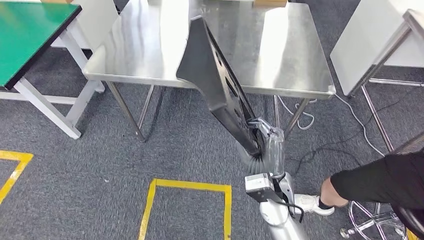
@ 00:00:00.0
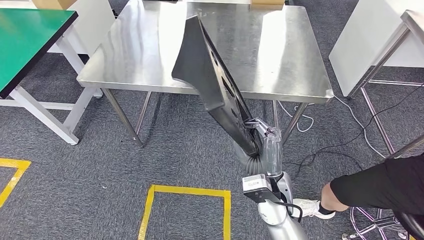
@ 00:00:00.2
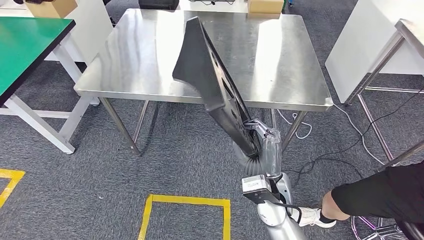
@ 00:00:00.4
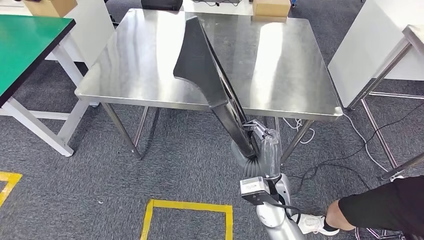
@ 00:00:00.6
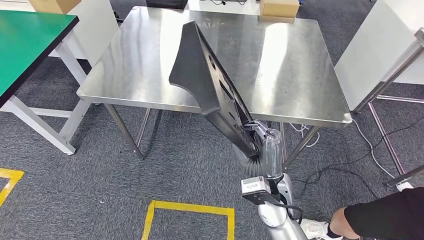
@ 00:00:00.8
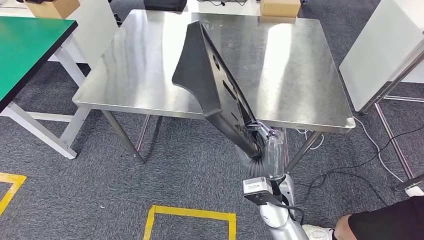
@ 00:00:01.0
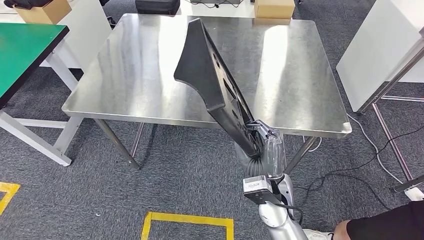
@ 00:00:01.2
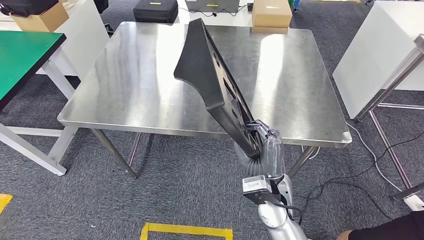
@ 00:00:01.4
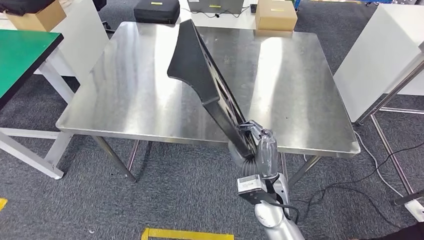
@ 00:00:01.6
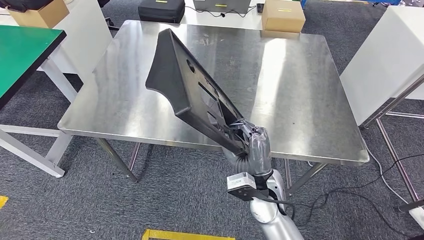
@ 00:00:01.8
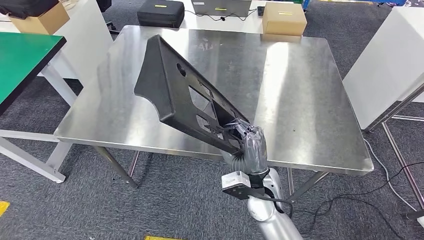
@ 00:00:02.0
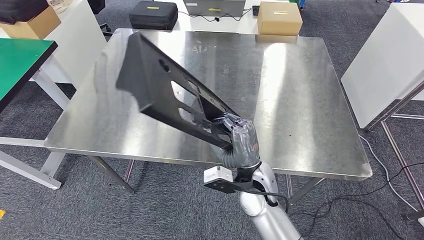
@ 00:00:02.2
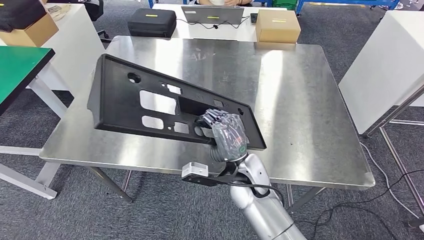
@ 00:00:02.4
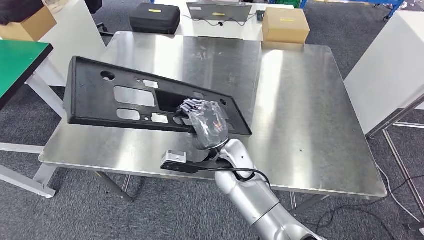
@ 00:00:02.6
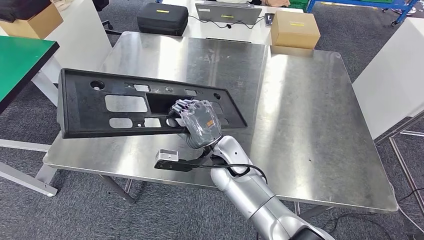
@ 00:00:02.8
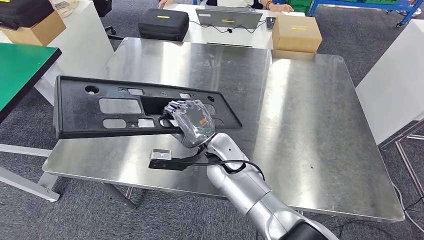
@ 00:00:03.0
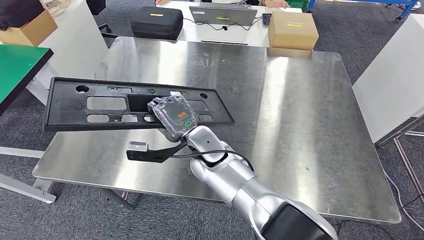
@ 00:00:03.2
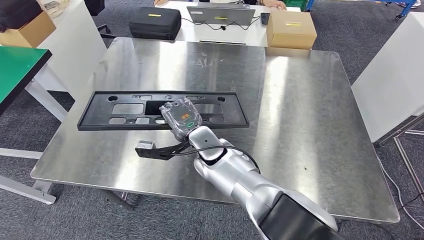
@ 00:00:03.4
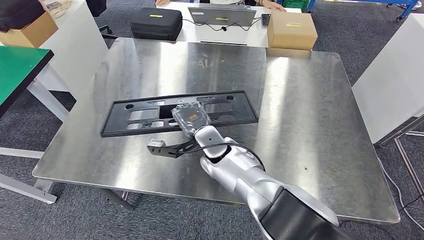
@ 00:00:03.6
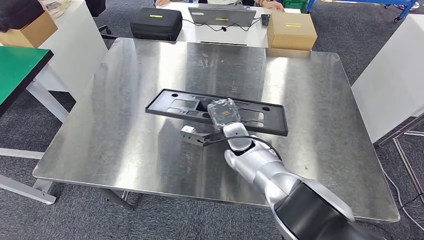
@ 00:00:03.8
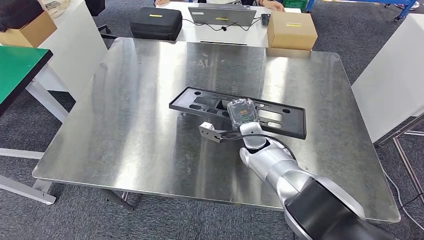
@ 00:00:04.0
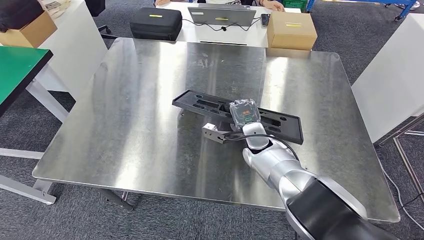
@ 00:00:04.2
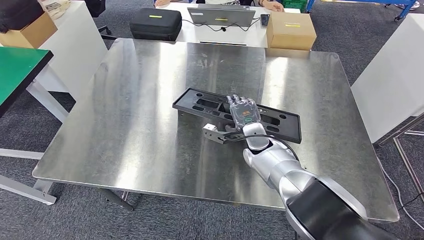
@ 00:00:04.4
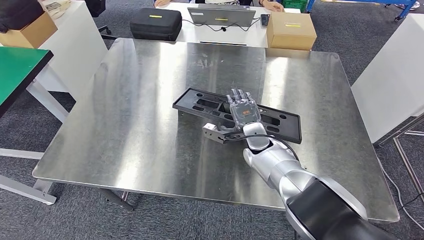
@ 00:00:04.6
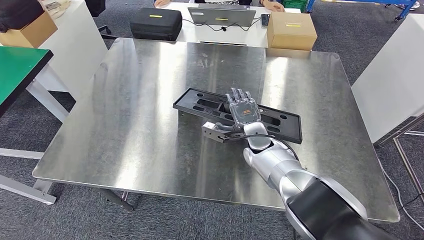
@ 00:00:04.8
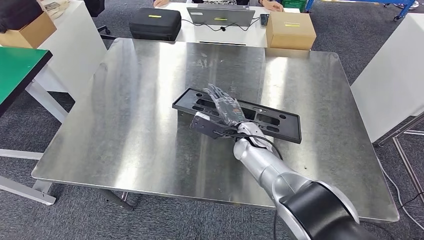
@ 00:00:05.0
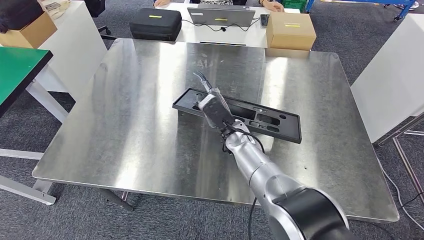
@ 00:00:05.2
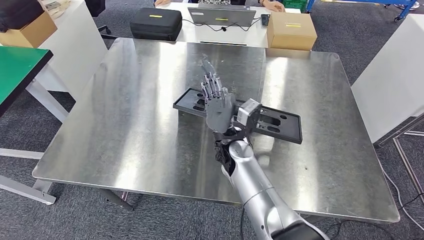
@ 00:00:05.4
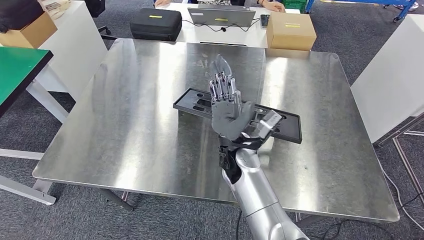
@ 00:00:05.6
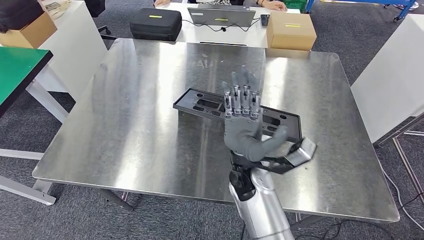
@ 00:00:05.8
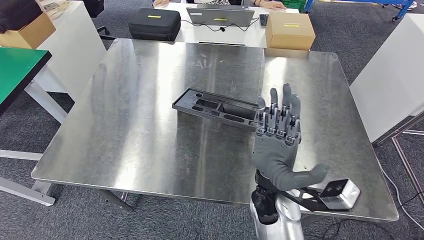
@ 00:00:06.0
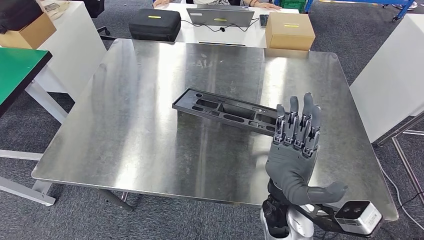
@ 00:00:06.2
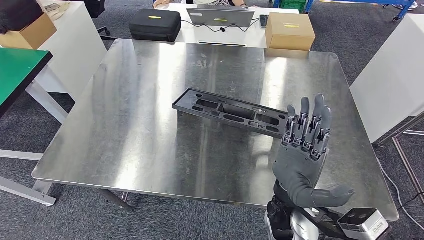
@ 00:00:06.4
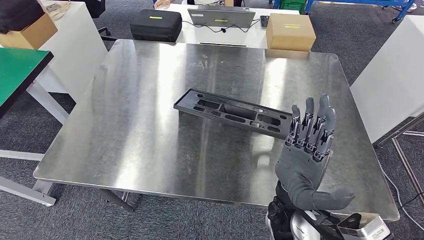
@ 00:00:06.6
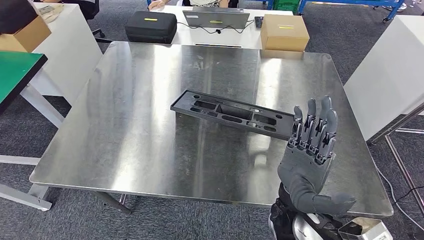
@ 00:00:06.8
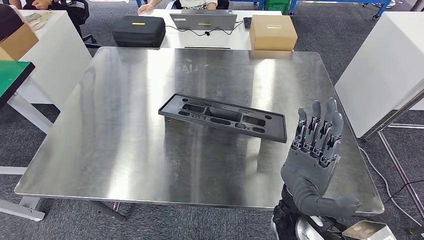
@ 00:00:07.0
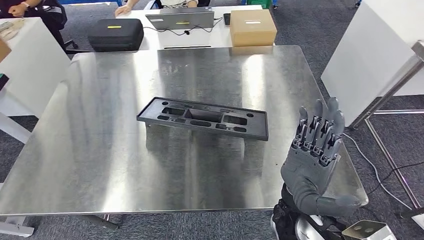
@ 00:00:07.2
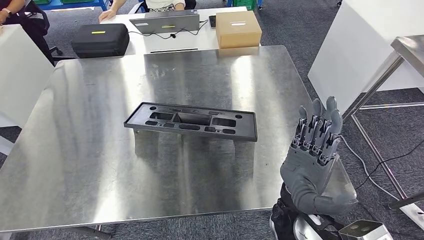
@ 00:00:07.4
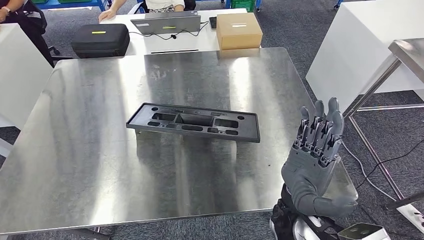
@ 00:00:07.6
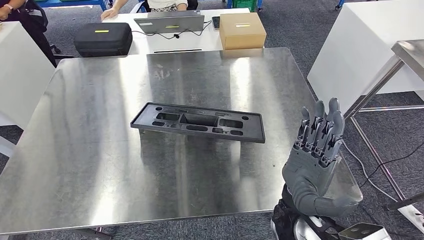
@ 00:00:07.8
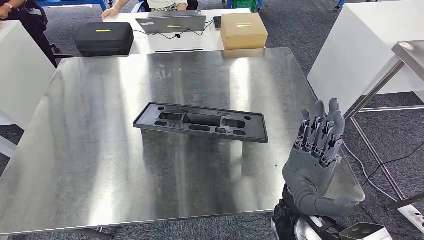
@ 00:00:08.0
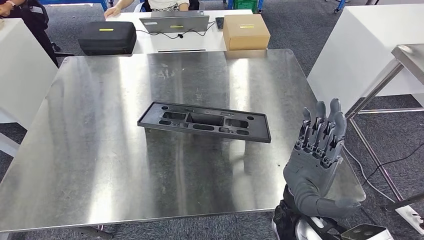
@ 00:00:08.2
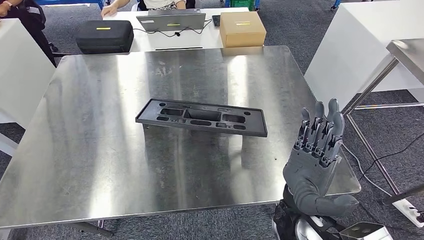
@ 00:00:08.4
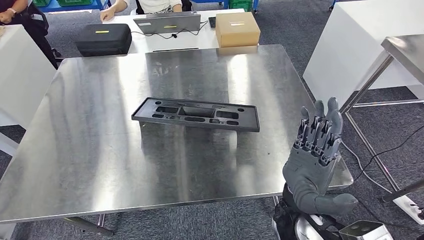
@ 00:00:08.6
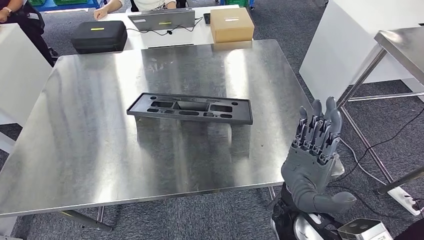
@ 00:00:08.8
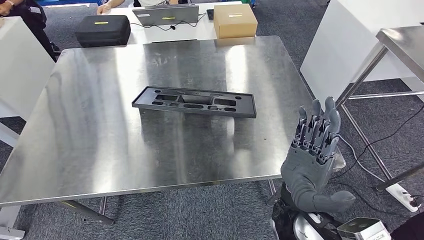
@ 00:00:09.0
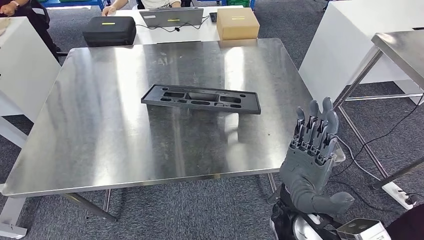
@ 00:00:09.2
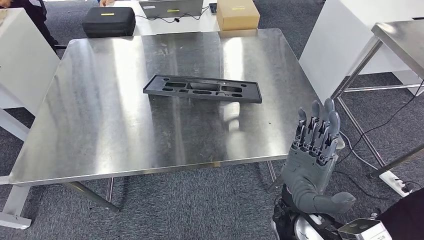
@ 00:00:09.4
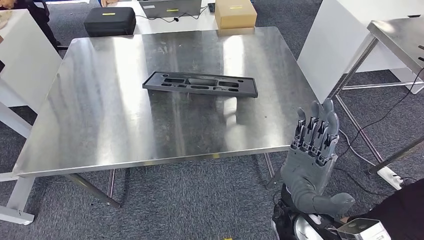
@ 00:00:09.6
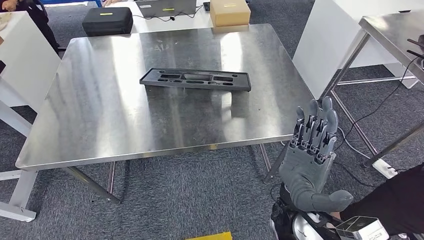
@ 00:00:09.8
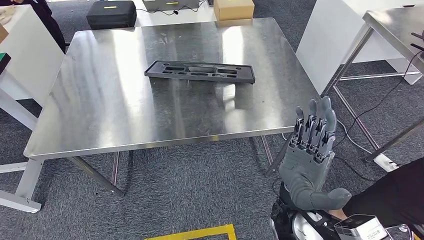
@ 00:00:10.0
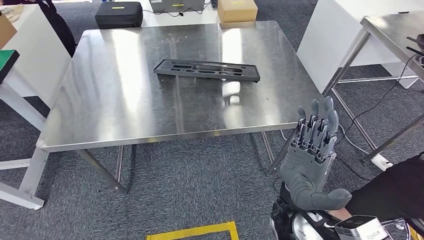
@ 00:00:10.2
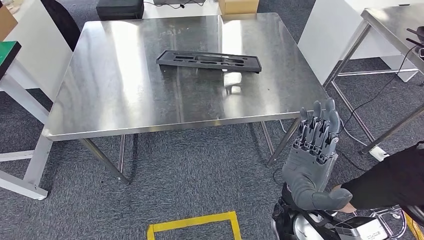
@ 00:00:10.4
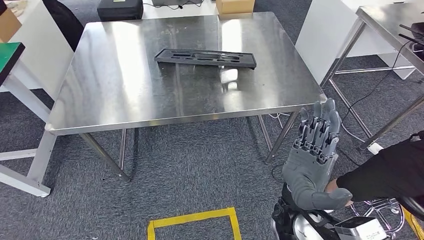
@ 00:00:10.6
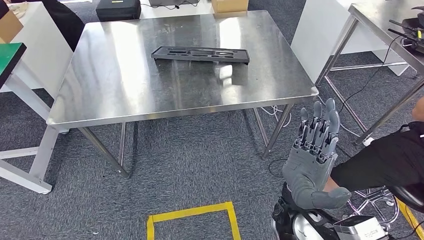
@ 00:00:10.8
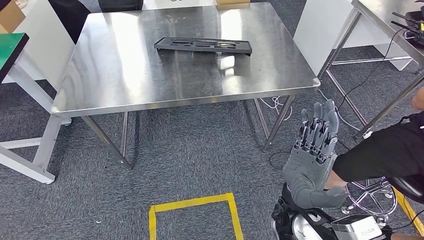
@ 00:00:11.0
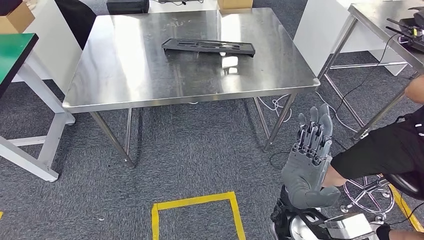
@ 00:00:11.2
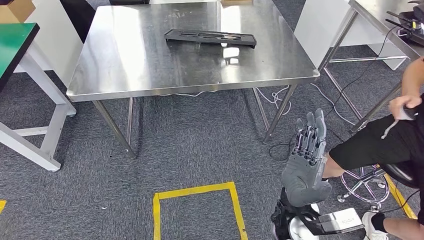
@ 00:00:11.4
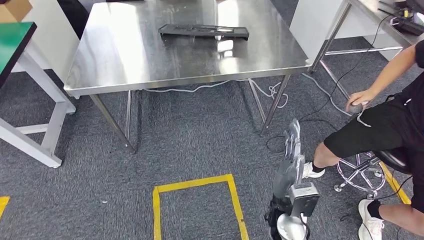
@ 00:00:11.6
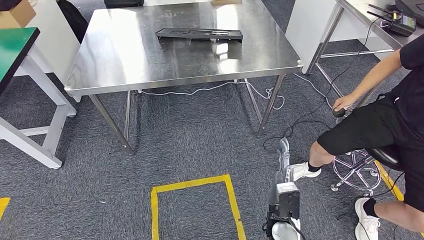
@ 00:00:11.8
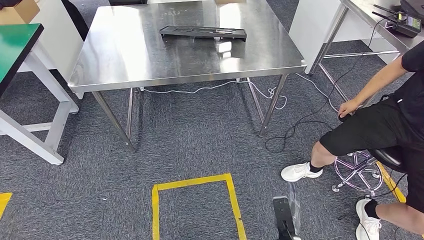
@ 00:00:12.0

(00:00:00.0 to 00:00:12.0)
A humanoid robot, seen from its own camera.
Step, 00:00:00.0 - 00:00:07.4: Insert the large material into the corresponding slot on the workbench.
00:00:04.4 - 00:00:06.0: The right hand moves backward, about 15 cm.

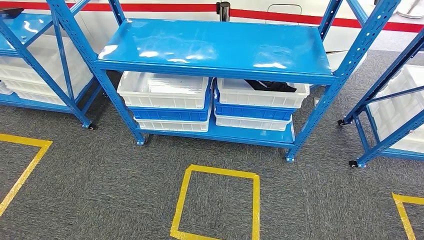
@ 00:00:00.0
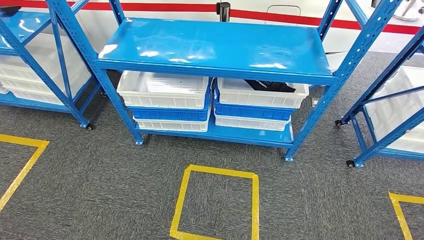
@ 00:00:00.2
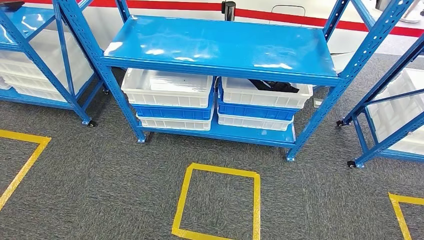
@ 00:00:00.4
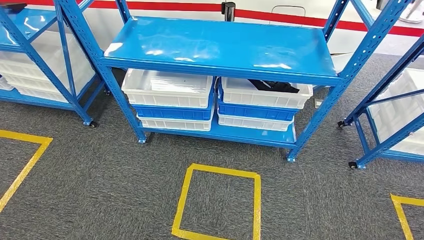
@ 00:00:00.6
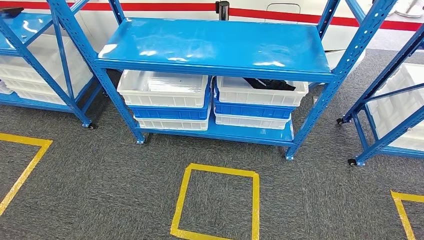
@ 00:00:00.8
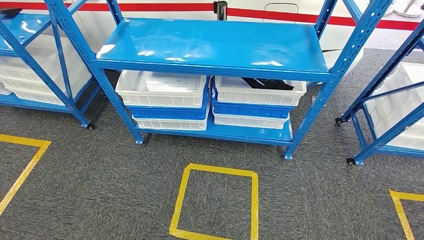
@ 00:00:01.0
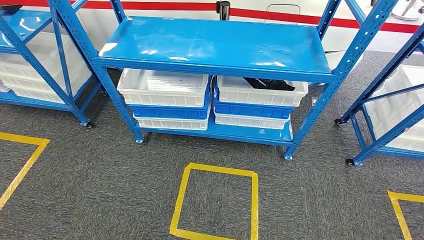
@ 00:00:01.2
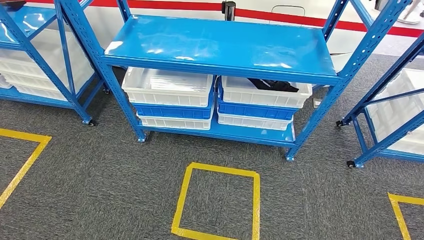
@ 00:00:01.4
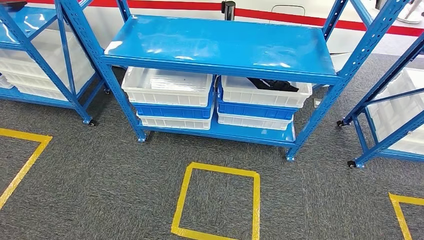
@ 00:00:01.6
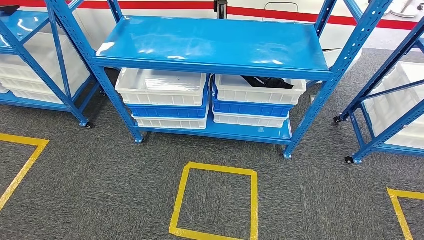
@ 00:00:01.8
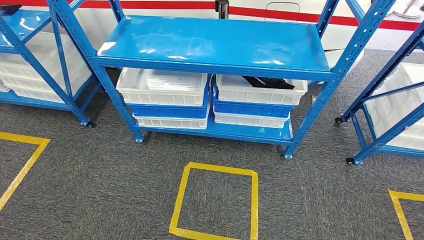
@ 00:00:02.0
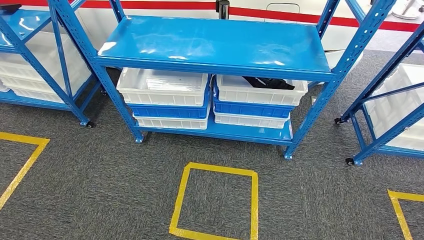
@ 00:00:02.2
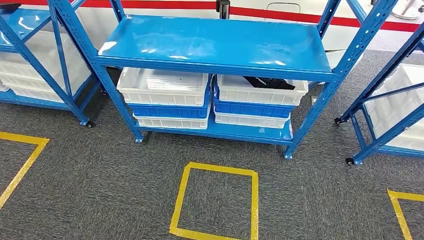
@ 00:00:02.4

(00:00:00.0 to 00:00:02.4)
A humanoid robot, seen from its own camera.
Step, 00:00:00.0 - 00:00:02.2: Return to the initial position at the shelf.
00:00:00.0 - 00:00:01.2: The left hand shifts roughly 5 cm backward.
00:00:01.2 - 00:00:02.4: The right hand is displaced backward by some 5 cm.
